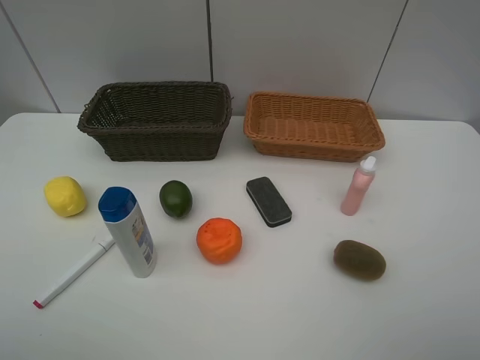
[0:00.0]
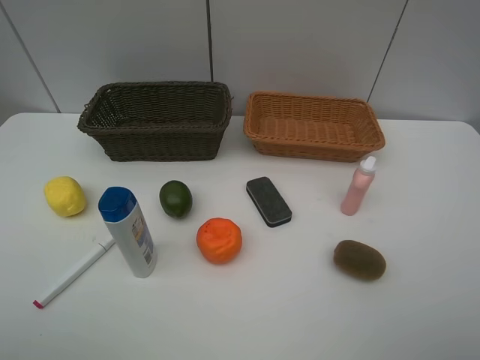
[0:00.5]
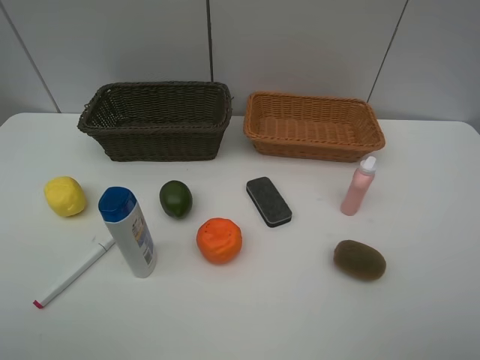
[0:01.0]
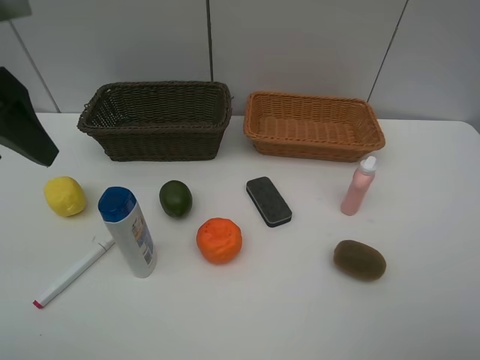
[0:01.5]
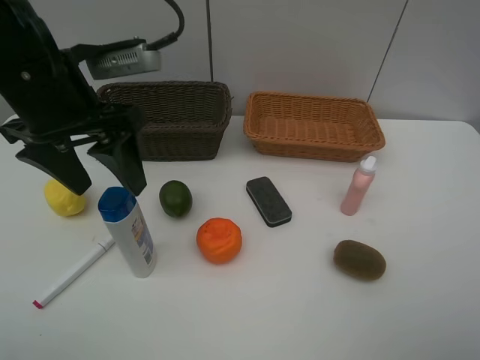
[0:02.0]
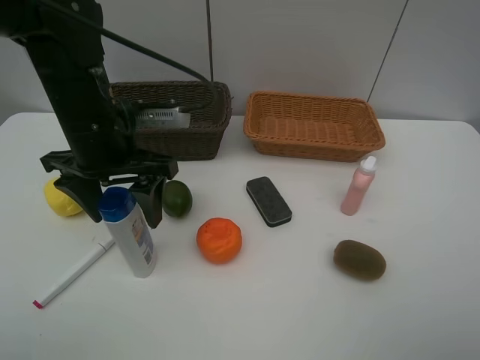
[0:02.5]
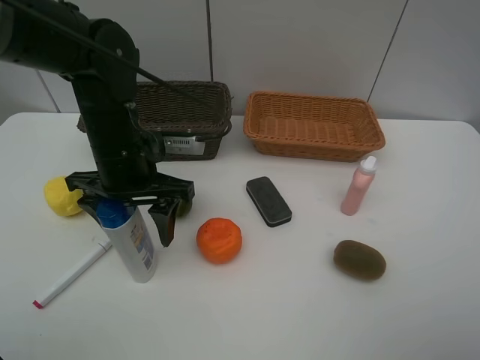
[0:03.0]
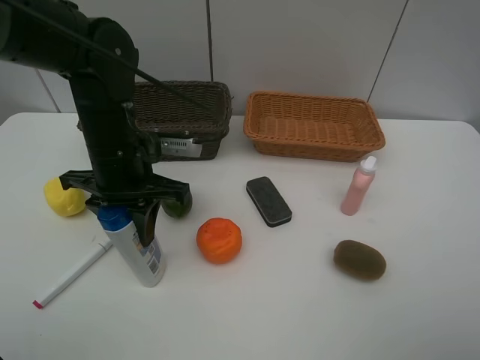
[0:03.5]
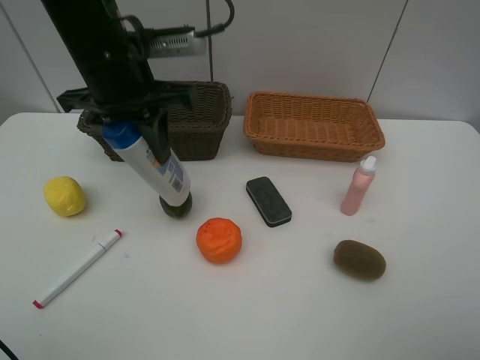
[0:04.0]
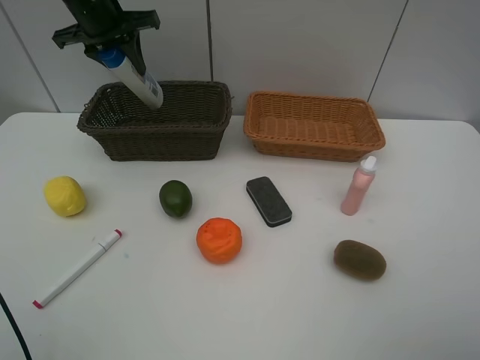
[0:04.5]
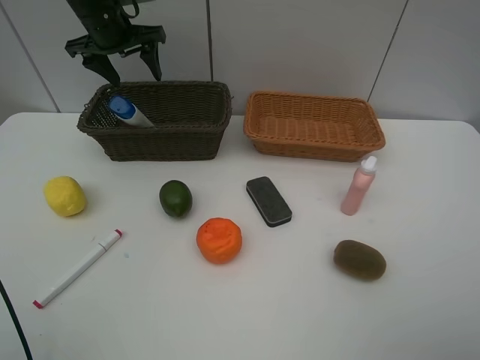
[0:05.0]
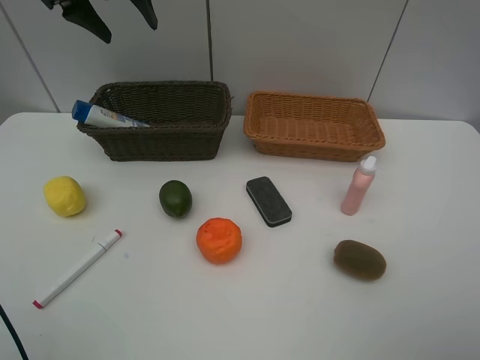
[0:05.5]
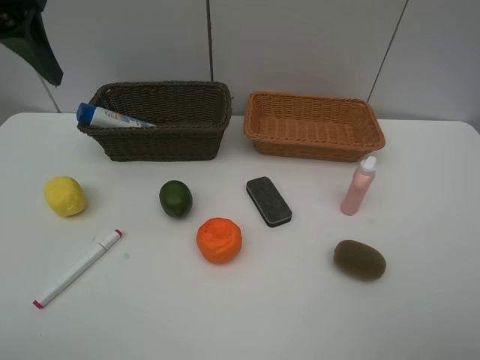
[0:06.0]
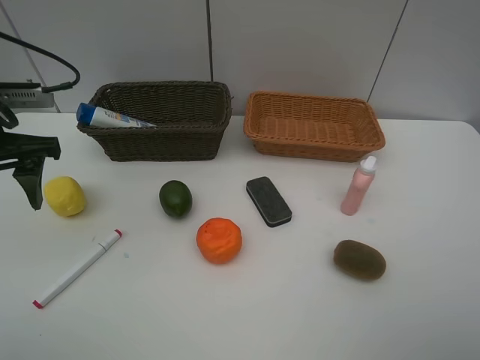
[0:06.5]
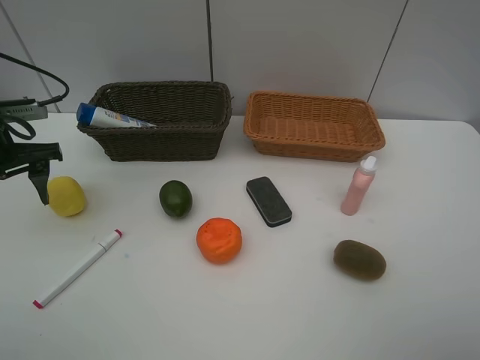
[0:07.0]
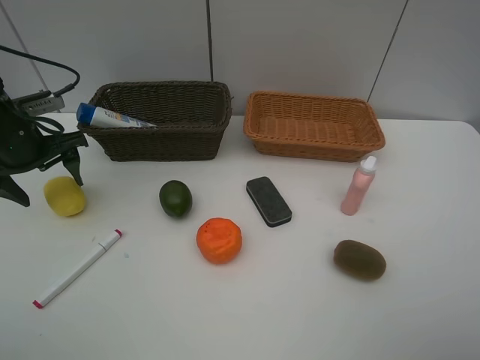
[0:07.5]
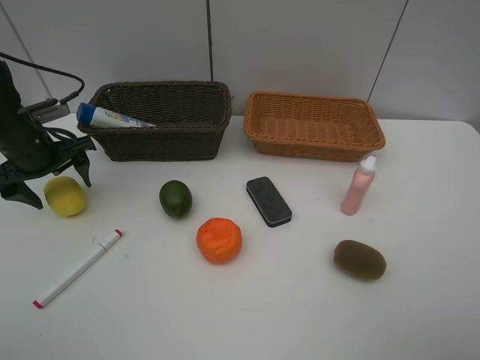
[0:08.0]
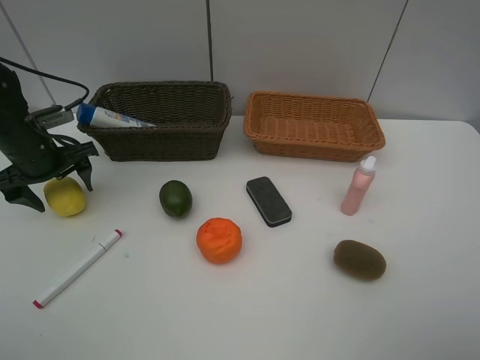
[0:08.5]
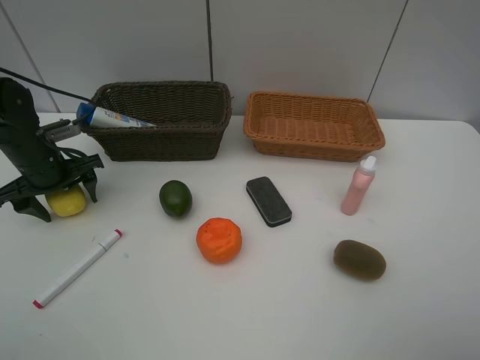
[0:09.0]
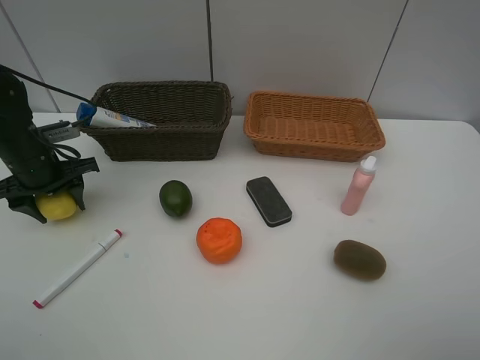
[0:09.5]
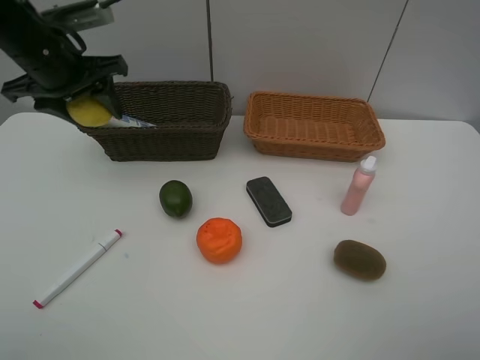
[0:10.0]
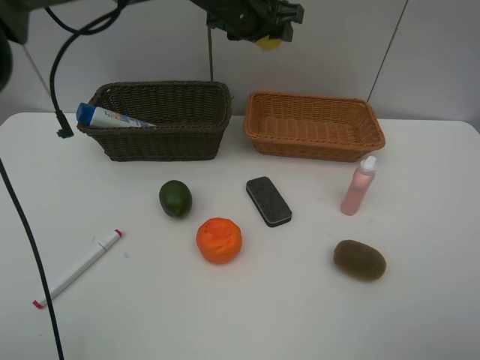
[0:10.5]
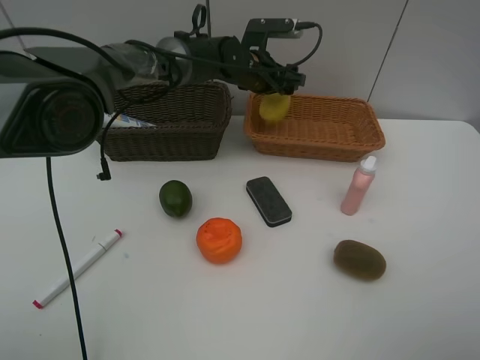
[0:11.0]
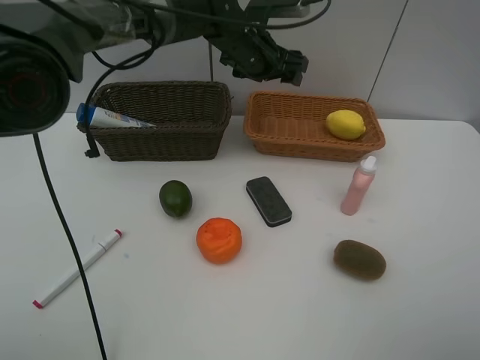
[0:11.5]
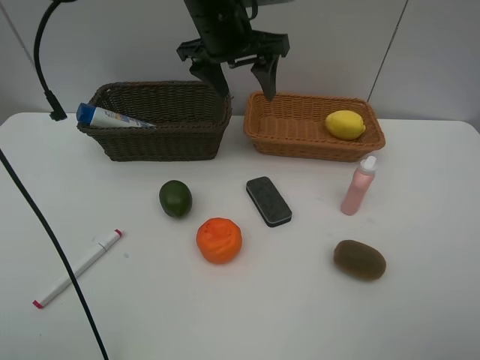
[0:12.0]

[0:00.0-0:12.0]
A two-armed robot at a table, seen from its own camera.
Task of the whole recording: Place multiple objects separately in different baskets.
Step, 0:00.0 to 0:03.5: Pick up the shampoo with left gripper.
Step, 0:04.0 to 0:04.5: Place the shampoo in the dark basket with left gripper.
Step, 0:05.0 to 0:09.5: Pick up the lemon with left gripper.
Step, 0:10.0 to 0:11.0: Place the lemon in the light basket with left gripper.
0:00.0 to 0:02.0: The left gripper shifts roughly 30 cm forward and to the right.
0:02.0 to 0:04.0: The left gripper shifts some 5 cm forward, reaches about 10 cm downward, then returns, and closes.
0:04.0 to 0:06.0: The left gripper moves to the left and upward, approximately 15 cm, moves roughly 20 cm forward and comes back, and opens up.
0:06.0 to 0:08.0: The left gripper heads downward, covering approximately 20 cm.
0:08.0 to 0:10.0: The left gripper goes some 15 cm upward and to the right.
0:10.0 to 0:12.0: The left gripper heads to the right, covering some 20 cm.

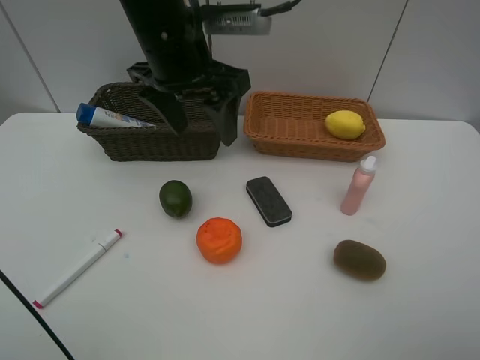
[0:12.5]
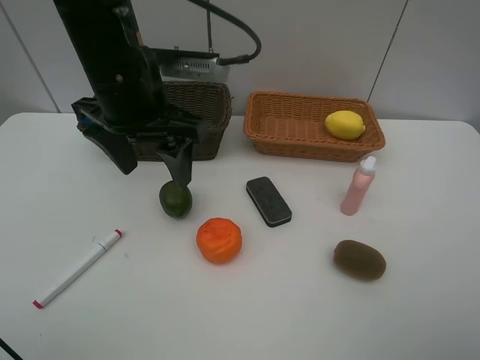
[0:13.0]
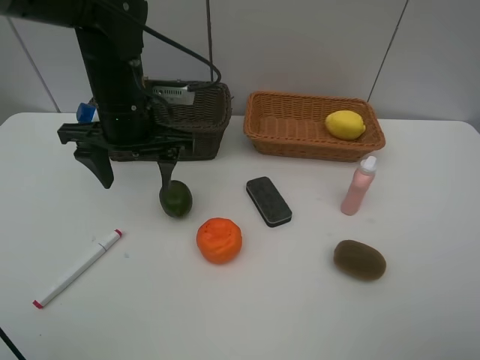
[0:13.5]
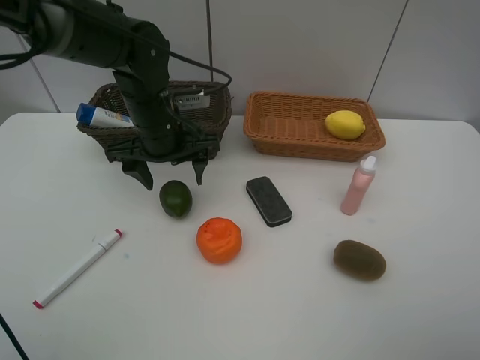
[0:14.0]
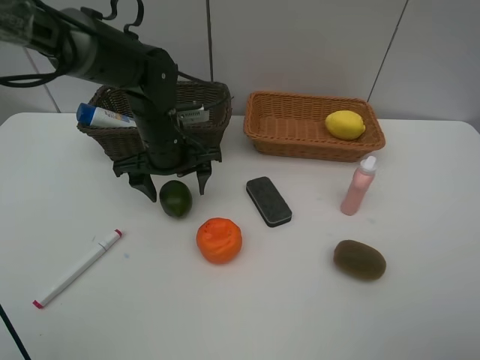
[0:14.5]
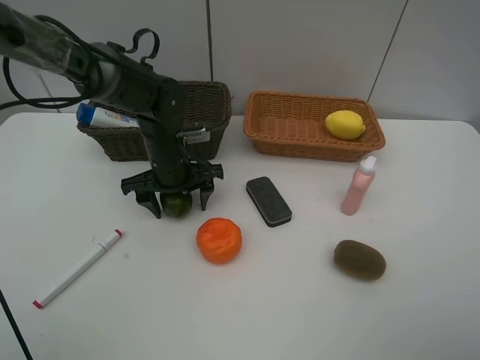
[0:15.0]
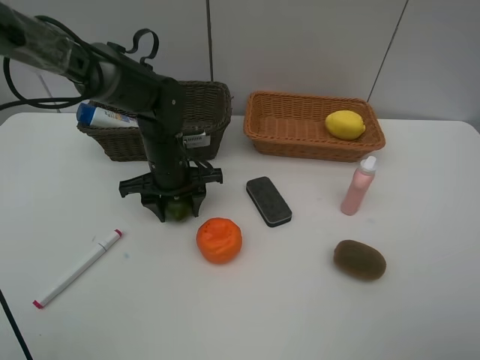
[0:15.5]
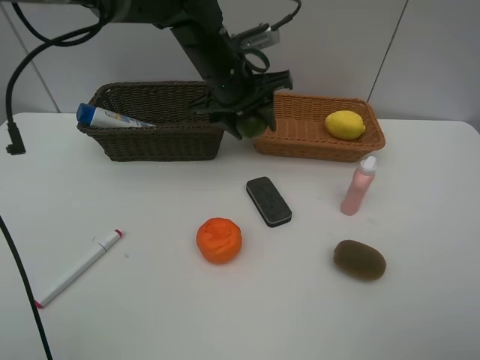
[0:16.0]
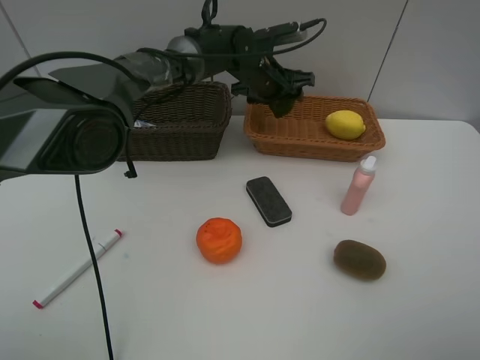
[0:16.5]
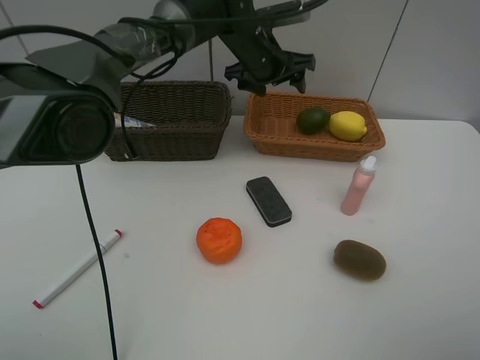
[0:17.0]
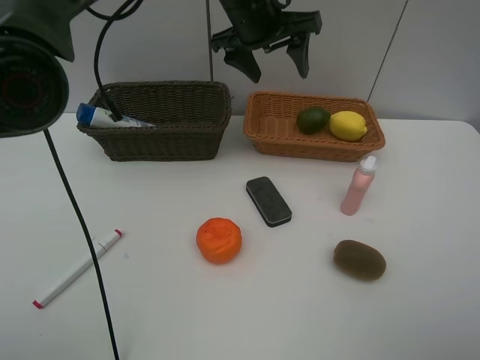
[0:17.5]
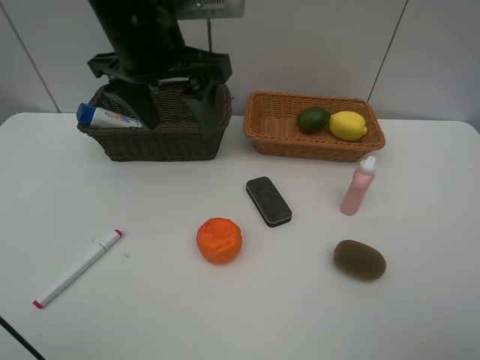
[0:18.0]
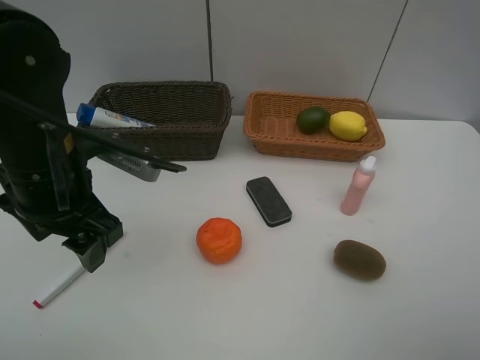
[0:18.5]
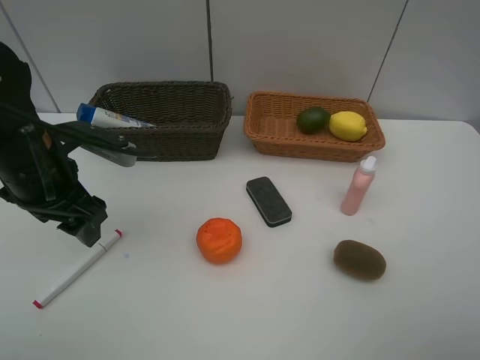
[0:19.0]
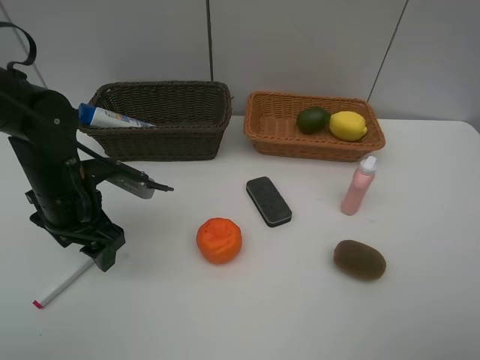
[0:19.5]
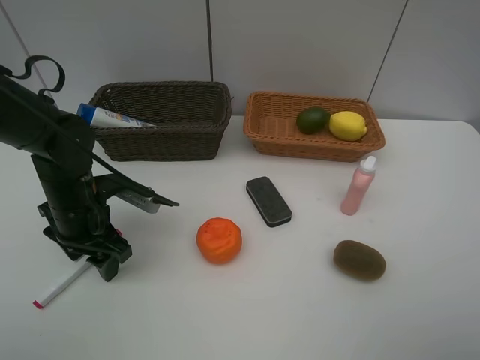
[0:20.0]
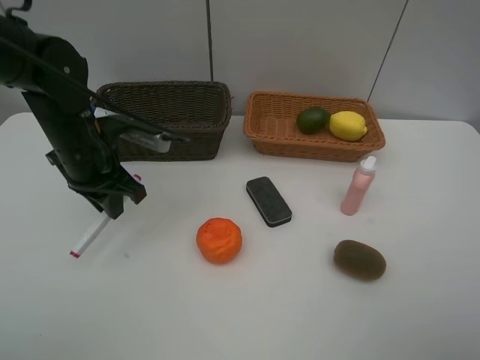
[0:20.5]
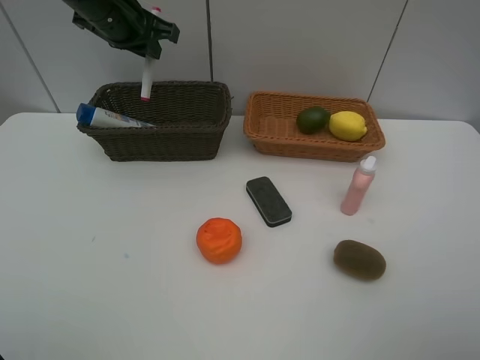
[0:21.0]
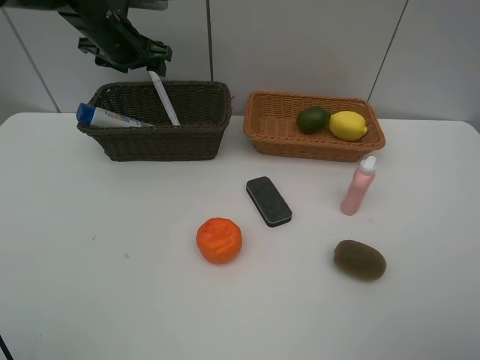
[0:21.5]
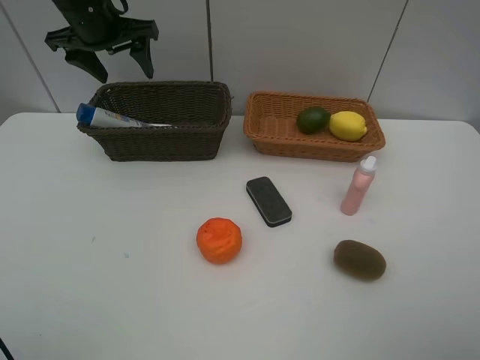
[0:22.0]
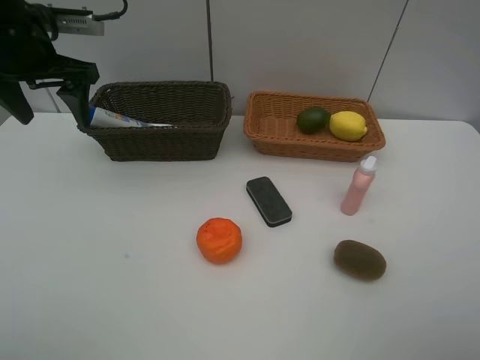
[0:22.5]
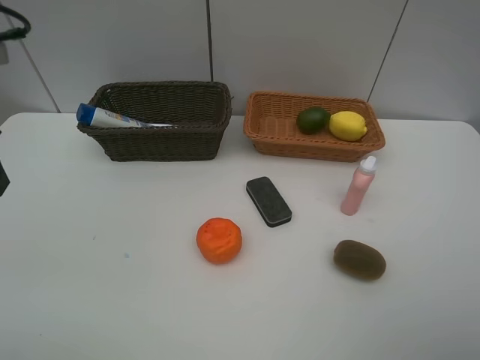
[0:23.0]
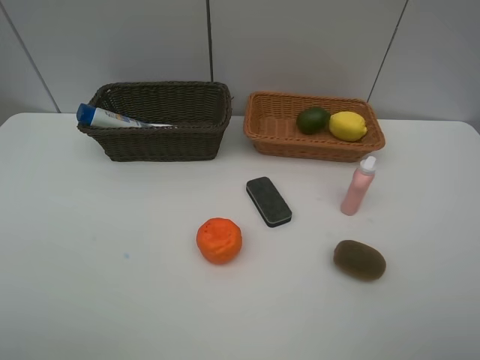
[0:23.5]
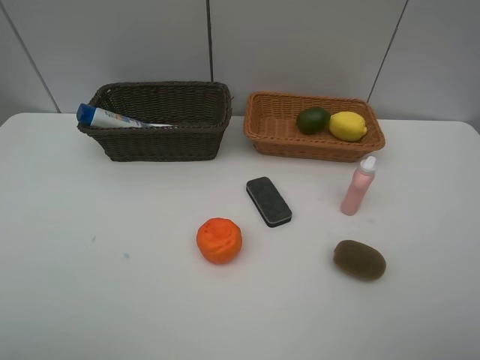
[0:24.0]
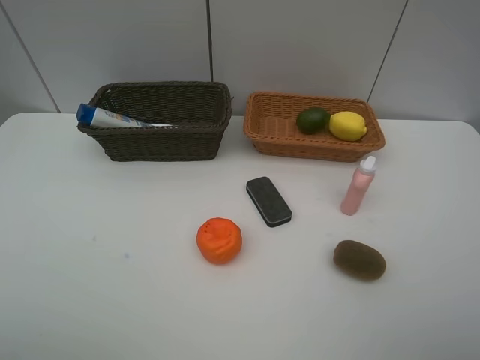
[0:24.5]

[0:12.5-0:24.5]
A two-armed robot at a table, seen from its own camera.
Task of the whole recording: Place multiple objects separately in different baskets.
Step, 0:12.5 to 0:15.5: Pick up the lime with left gripper.
Step, 0:16.0 to 0:16.5: Place the lime in the light basket with left gripper.
Step, 0:17.0 to 0:20.0: Pick up the red marker with left gripper.
Step, 0:20.5 to 0:21.5: Place the red marker in the dark basket with left gripper.
0:12.5 to 0:14.5: The left gripper goes some 15 cm downward.
0:14.5 to 0:16.5: The left gripper is displaced forward and to the right by roughly 20 cm.
0:16.5 to 0:18.5: The left gripper goes some 35 cm backward and to the left.
0:18.5 to 0:20.5: The left gripper shifts some 10 cm forward, travels downward and back again, approximately 10 cm each way, and closes.
0:20.5 to 0:22.5: The left gripper goes some 10 cm upward and to the left, travels forward and back again, approximately 20 cm each way, and opens its fingers.
0:22.5 to 0:24.5: The left gripper moves backward, roughly 35 cm.

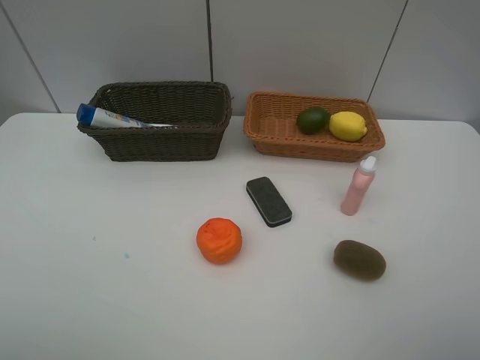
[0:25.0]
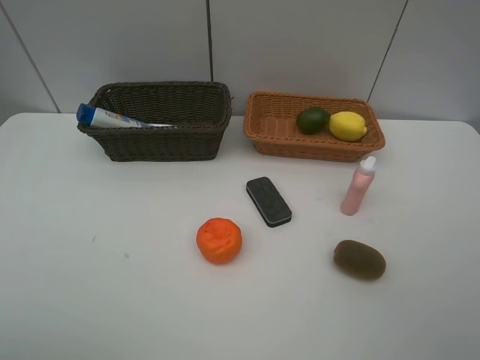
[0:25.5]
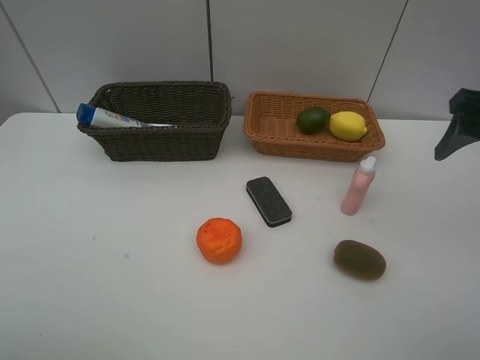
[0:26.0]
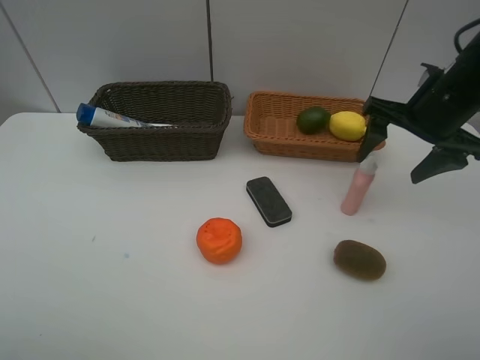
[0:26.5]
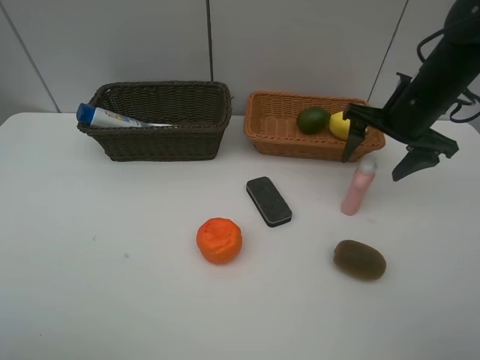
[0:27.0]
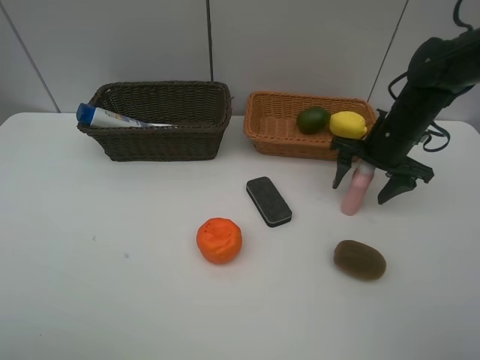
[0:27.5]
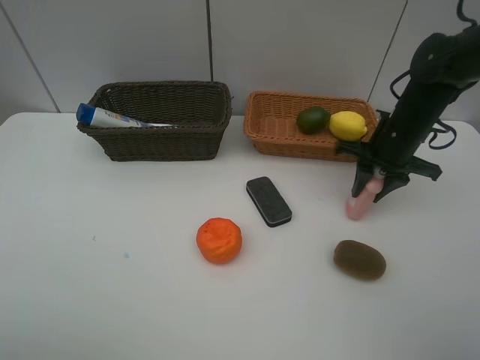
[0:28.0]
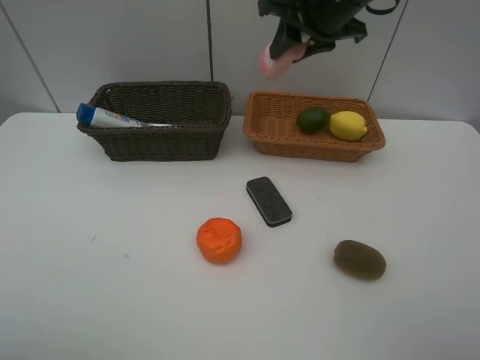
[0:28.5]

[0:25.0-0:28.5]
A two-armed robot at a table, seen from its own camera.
Task of the whole recording: Place multiple objects separately in different baskets.
Step, 0:25.0 to 0:28.0: Pick up the laundry detergent with right gripper.
0:25.0 to 0:27.0: The right gripper shifts roughly 35 cm forward.
0:27.0 to 0:28.5: The right gripper heads to the left and upward, covering roughly 20 cm, and closes up.
